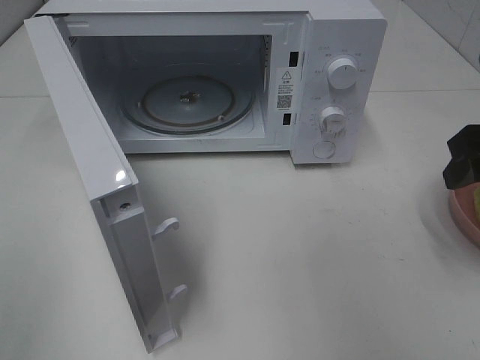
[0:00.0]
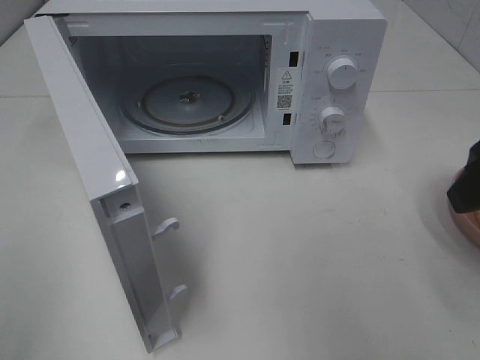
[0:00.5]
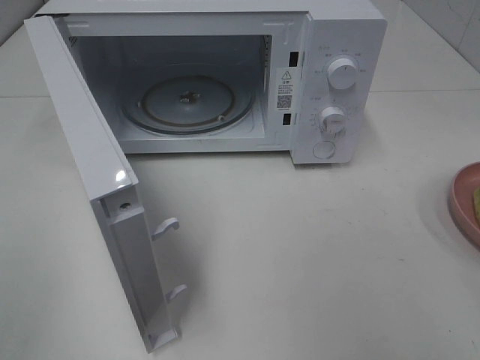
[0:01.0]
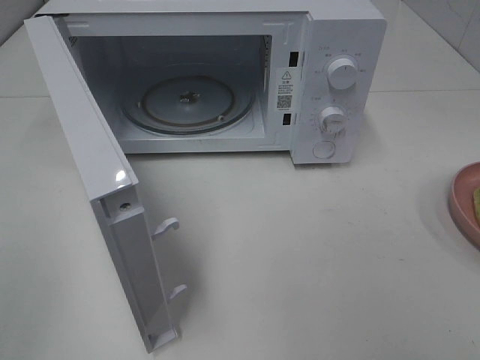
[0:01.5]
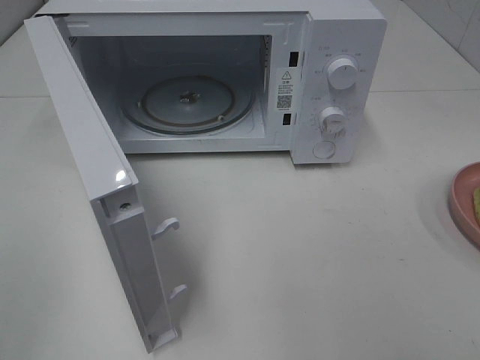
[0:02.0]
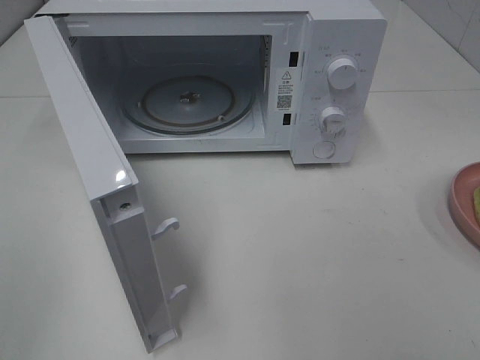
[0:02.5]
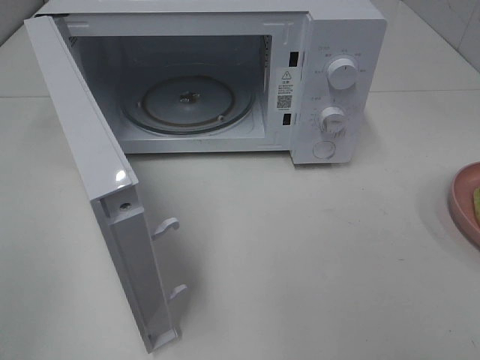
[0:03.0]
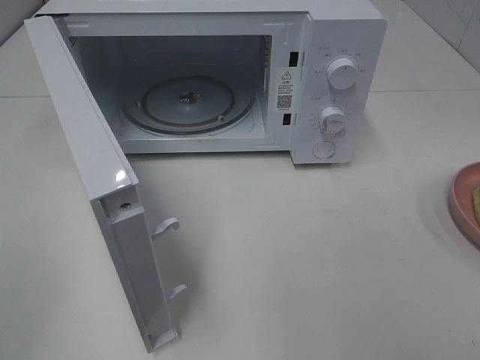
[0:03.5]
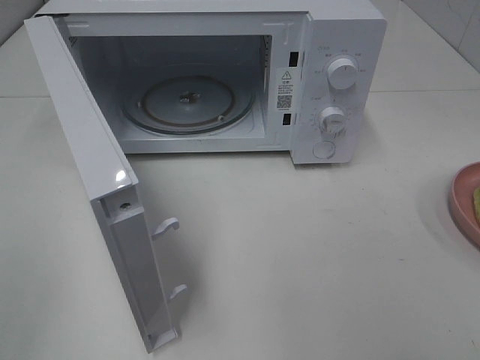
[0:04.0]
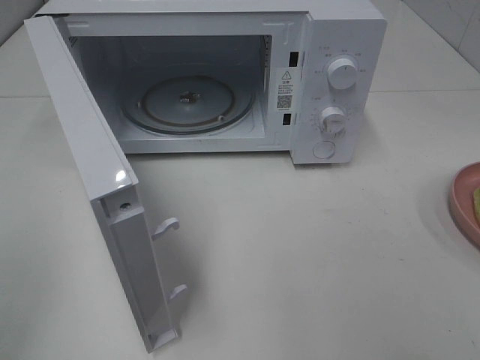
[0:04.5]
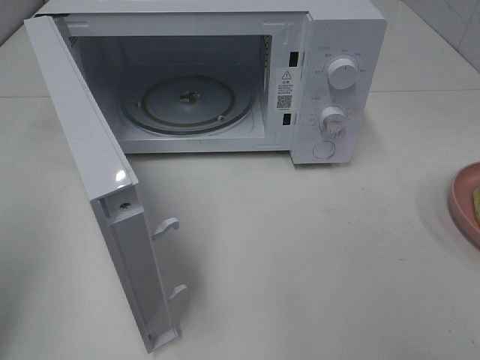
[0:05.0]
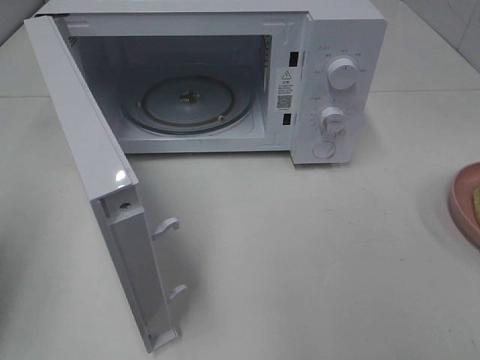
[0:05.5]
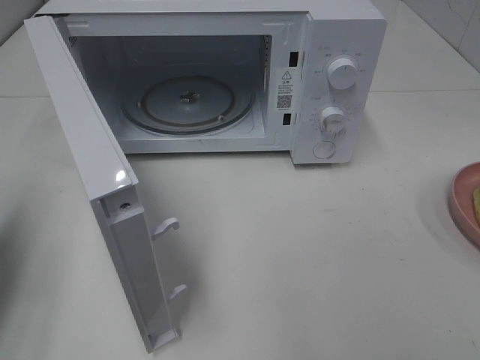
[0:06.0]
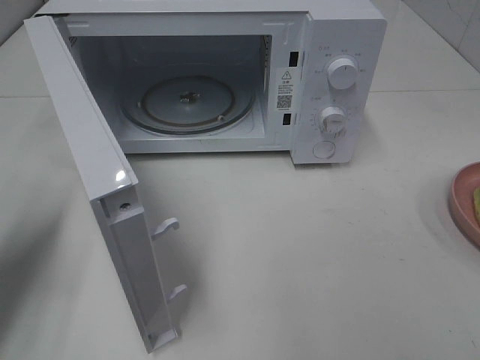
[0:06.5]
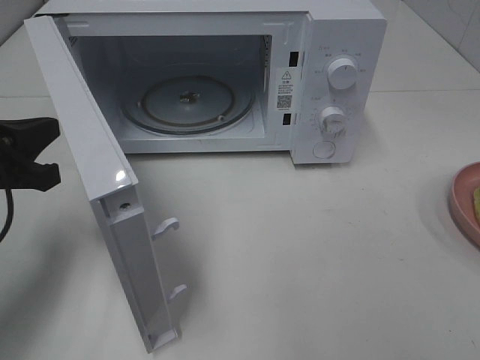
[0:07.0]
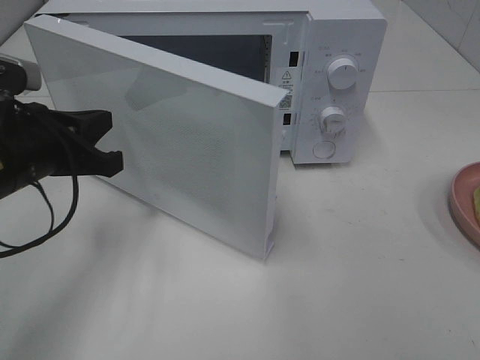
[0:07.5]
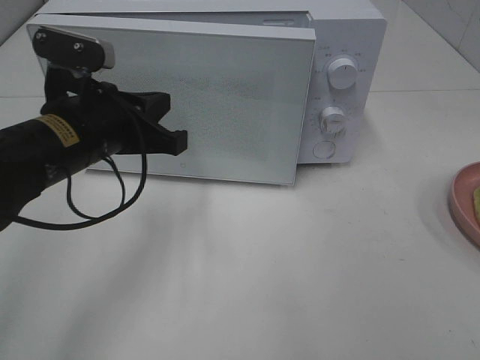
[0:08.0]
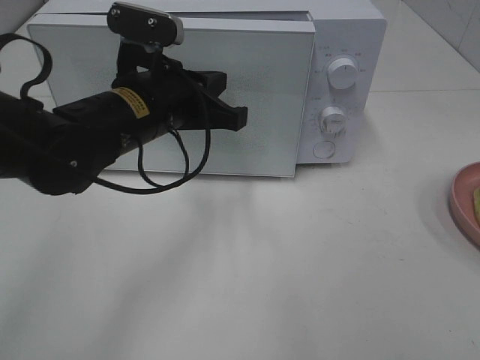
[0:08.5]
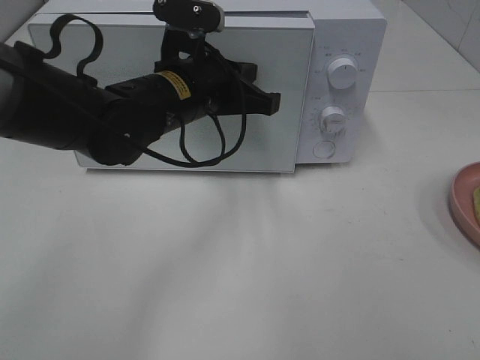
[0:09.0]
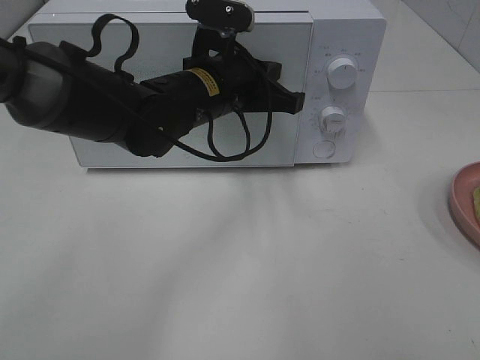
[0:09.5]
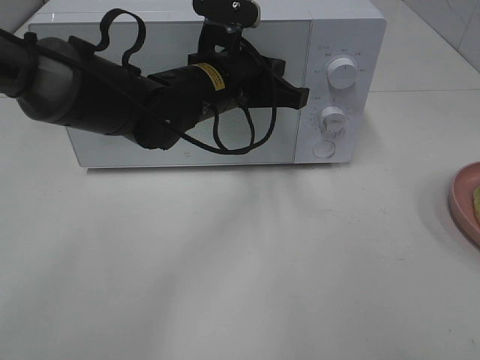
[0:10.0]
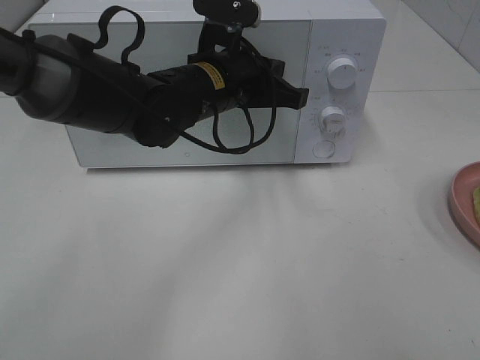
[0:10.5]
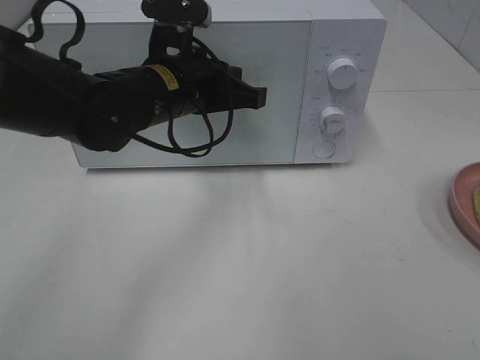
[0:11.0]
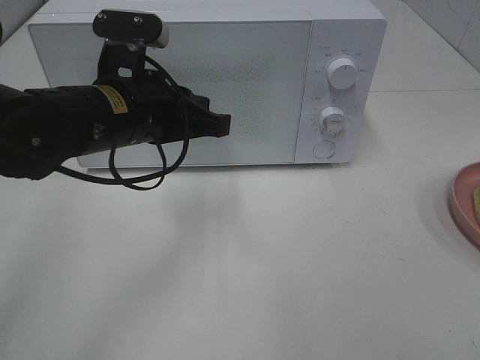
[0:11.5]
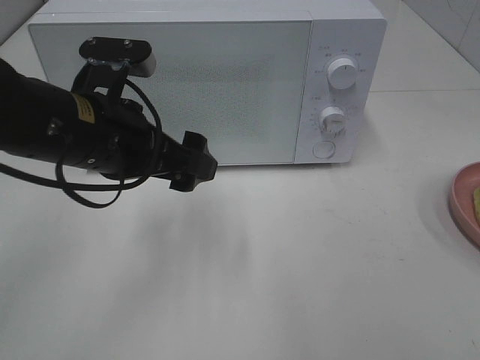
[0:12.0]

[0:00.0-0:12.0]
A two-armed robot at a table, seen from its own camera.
Task of the whole recording: Heat Sandwich.
Step, 0:00.0 to 0:11.5: Left hand: close the microwave door.
0:00.0 to 0:02.0: The right gripper shifts roughly 25 cm backward.
0:02.0 to 0:04.0: Neither gripper changes place.
0:04.0 to 0:06.0: The left gripper moves forward, roughly 20 cm, and closes its fingers.
0:06.0 to 0:08.0: The left gripper is displaced to the right and forward by some 20 cm.
0:08.0 to 0:10.0: The left gripper is displaced to the right and forward by some 15 cm.
0:10.0 to 0:12.0: The left gripper moves backward and to the left, about 15 cm, and opens.

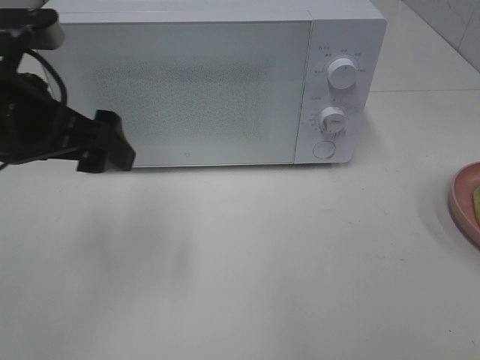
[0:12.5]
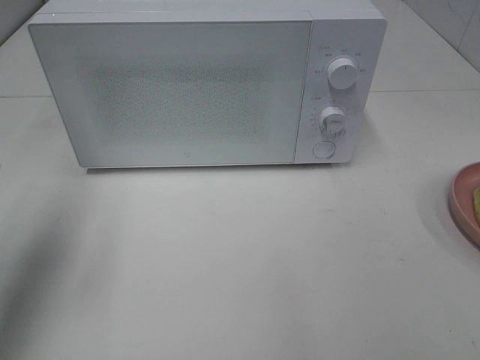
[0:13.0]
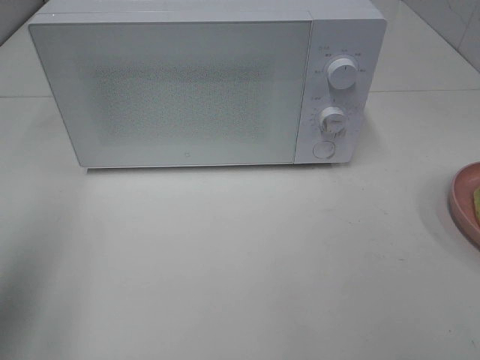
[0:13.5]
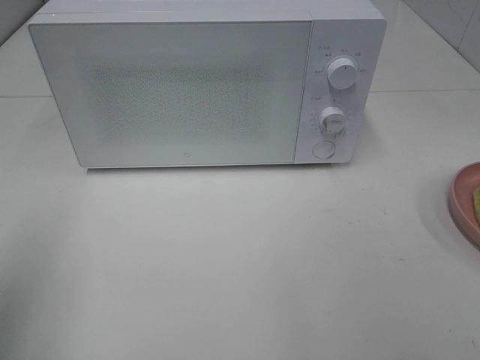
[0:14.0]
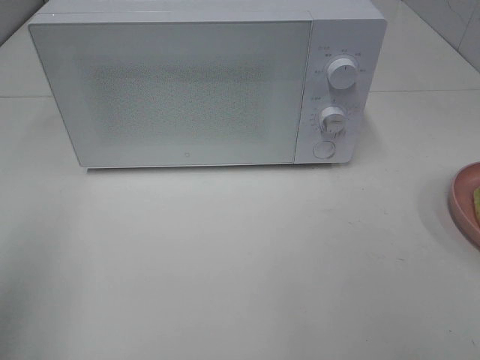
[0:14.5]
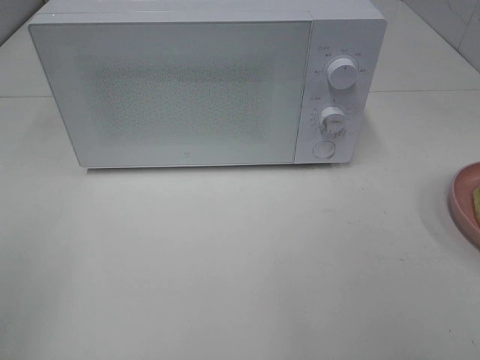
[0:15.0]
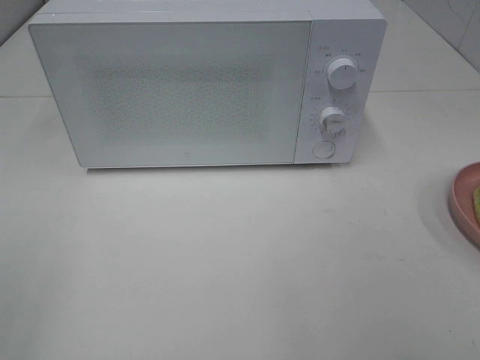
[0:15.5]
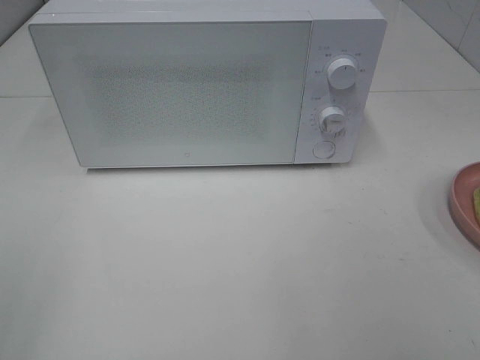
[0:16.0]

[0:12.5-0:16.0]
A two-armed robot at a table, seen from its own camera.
Task of the whole recording: Heat Sandwich.
0:12.5 to 0:14.5: The left gripper heads backward and to the left, covering about 20 cm.

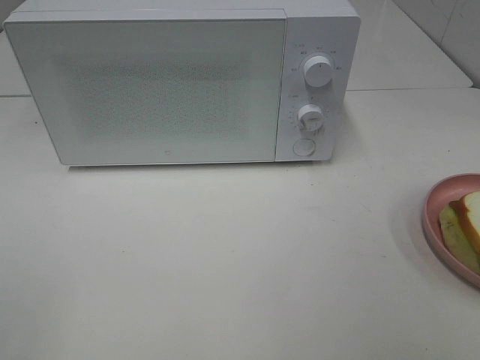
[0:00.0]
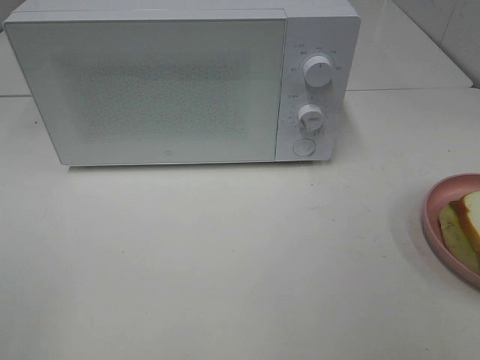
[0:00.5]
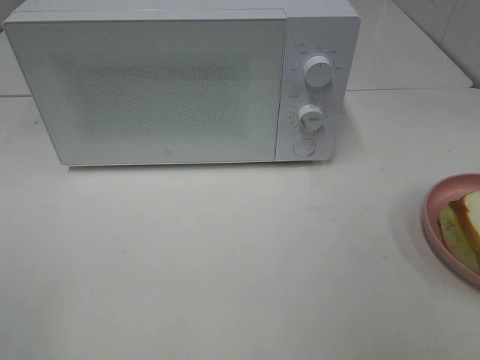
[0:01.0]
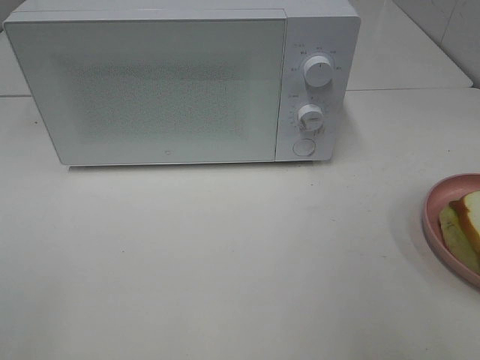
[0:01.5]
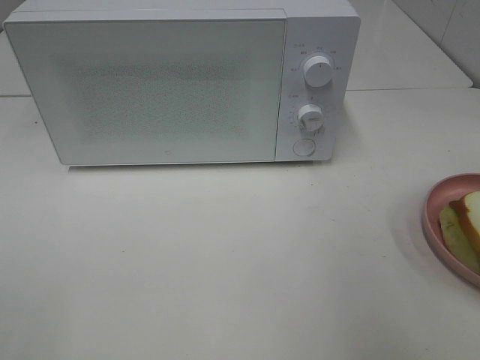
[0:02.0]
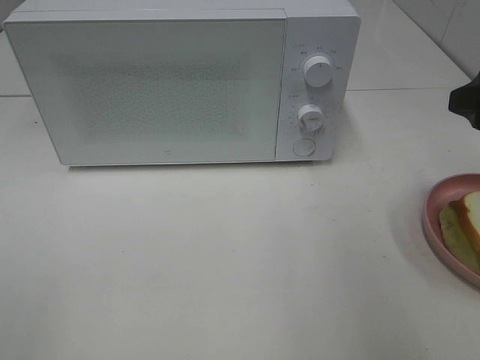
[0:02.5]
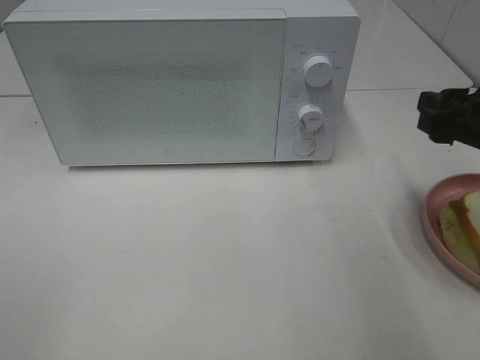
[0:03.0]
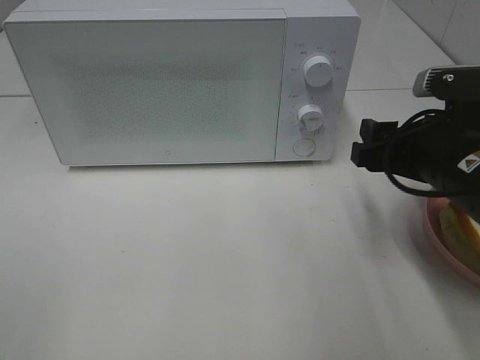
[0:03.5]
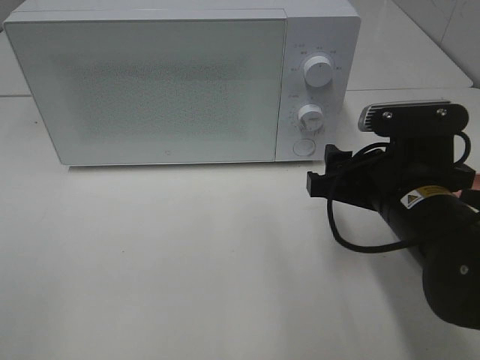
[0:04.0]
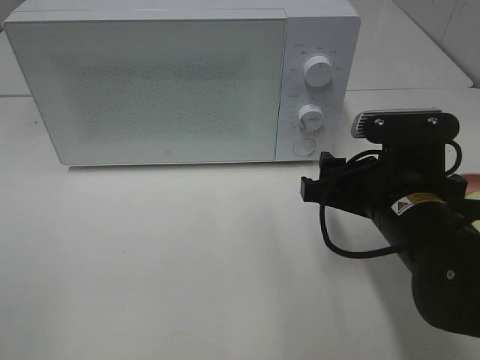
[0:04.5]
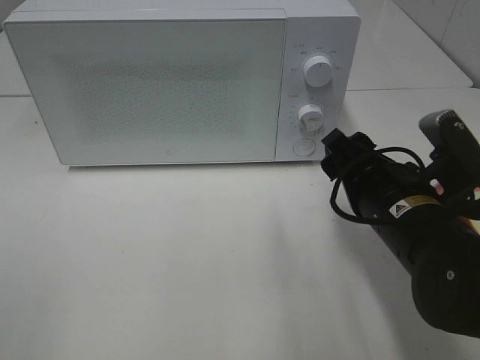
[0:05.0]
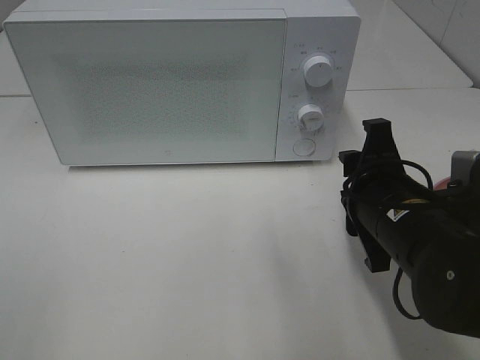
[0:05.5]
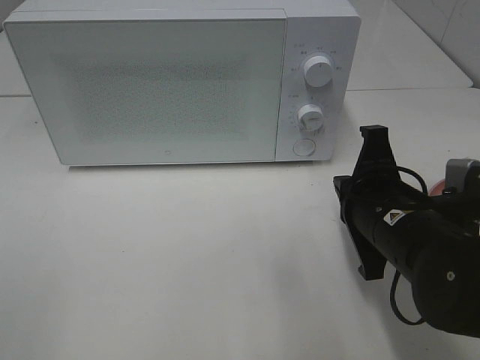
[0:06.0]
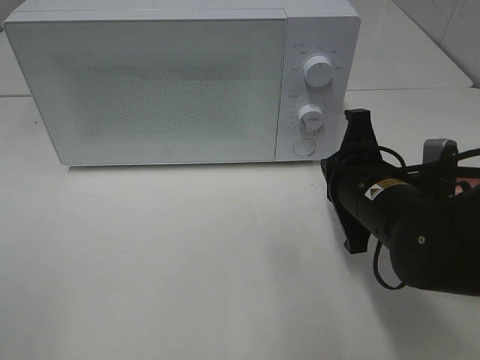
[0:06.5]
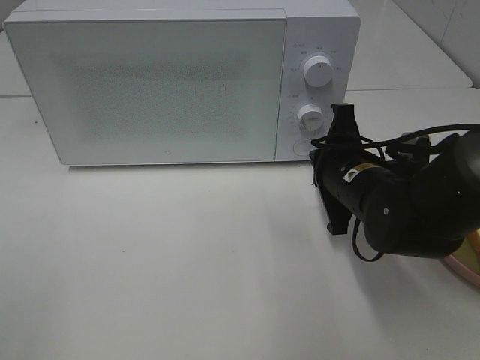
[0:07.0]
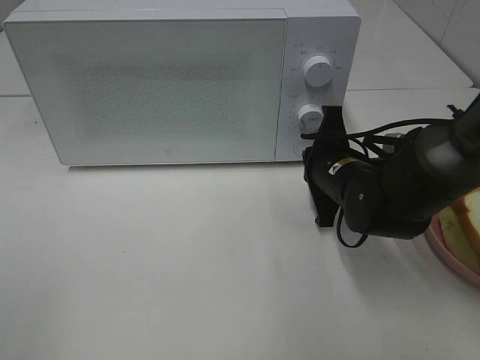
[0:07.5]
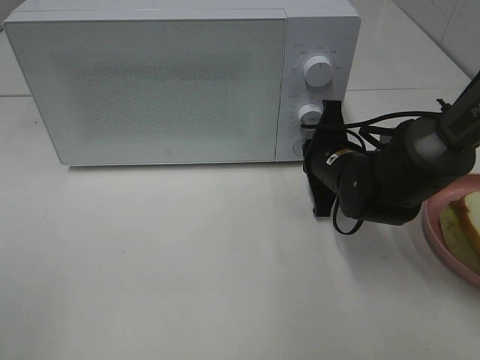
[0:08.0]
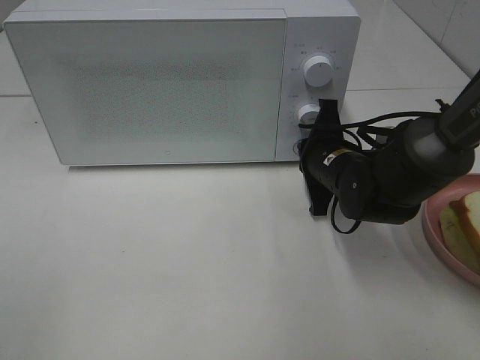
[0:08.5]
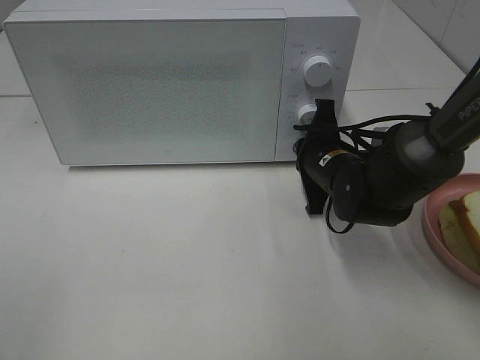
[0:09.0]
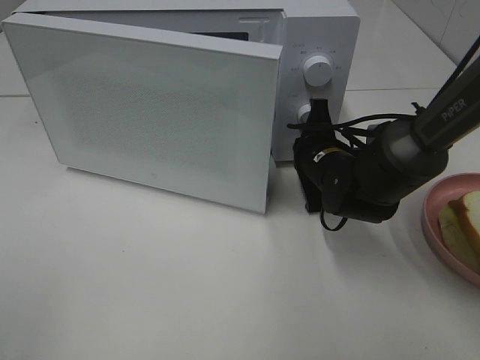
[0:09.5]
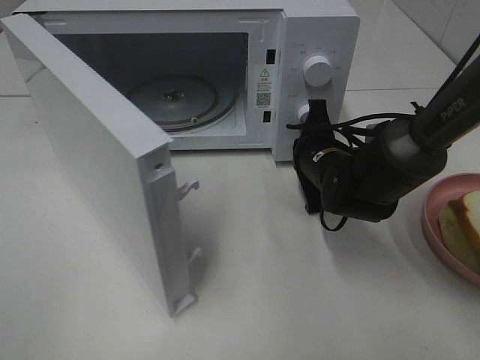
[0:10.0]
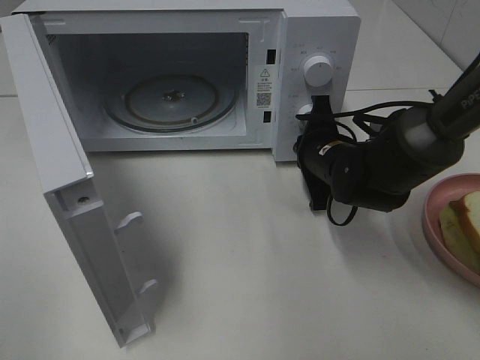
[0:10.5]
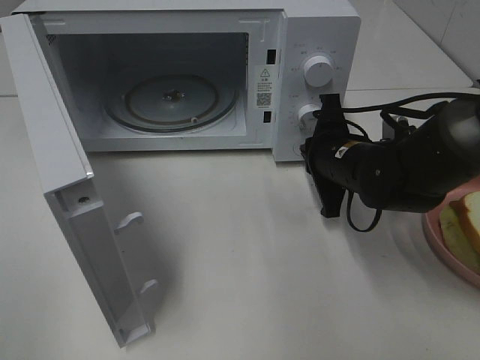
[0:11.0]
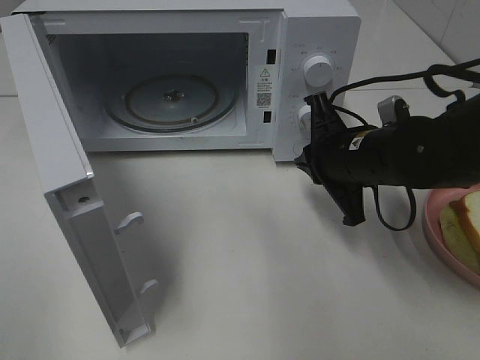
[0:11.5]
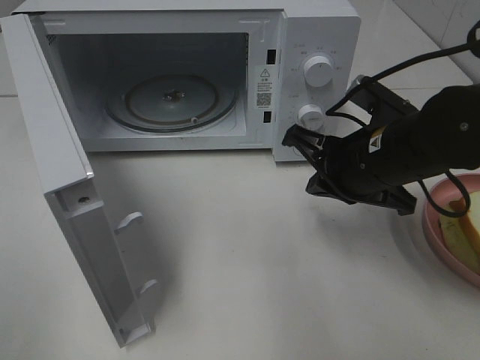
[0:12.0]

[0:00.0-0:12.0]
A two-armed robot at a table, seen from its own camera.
Task of the whole recording: Heat Sandwich.
Step, 0:00.0 to 0:11.0: Right hand: press the switch.
0:02.0 to 0:04.0: The right gripper travels downward and to the left by about 20 cm.
0:04.0 to 0:06.0: The right gripper closes its fingers.
0:06.0 to 0:08.0: The right gripper heads forward, covering approximately 15 cm.
0:10.0 to 0:12.0: The right gripper goes about 10 cm backward and upward.
